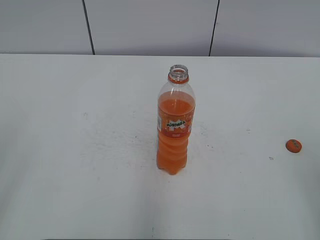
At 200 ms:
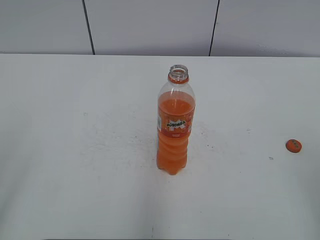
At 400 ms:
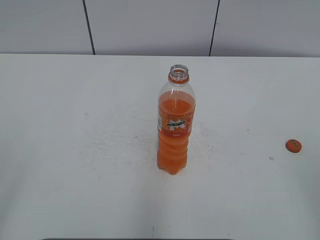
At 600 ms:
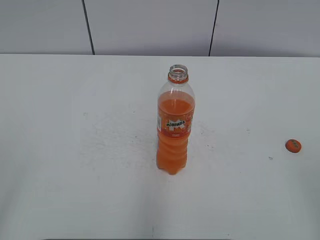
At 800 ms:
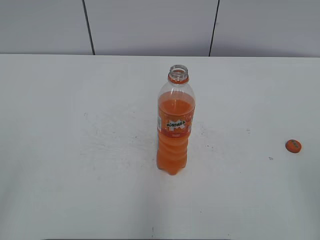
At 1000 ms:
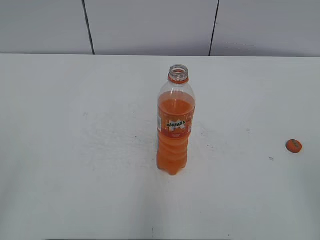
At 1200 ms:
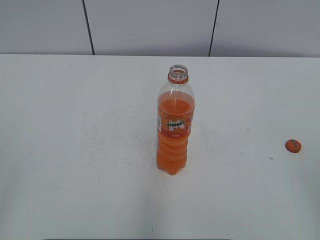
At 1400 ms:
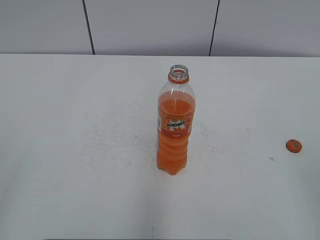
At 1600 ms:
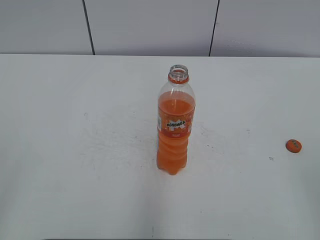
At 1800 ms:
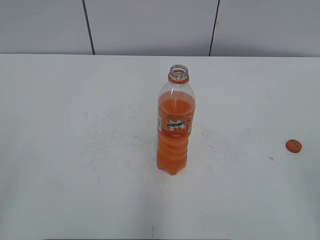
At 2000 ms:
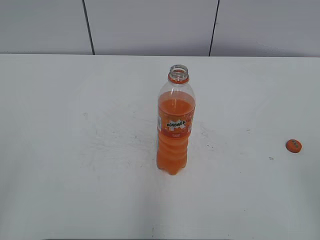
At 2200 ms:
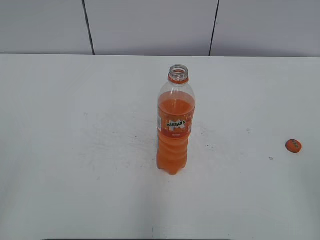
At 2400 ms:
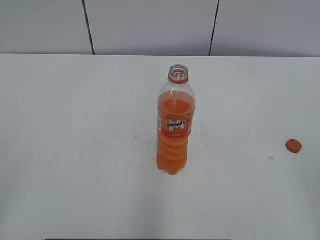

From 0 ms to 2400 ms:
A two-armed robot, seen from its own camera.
From 1200 ms to 2400 ms: Both grippers stay about where they are.
